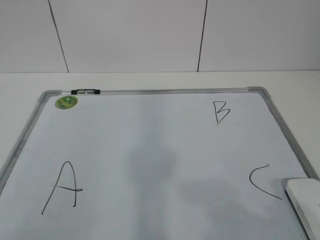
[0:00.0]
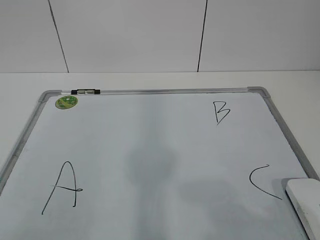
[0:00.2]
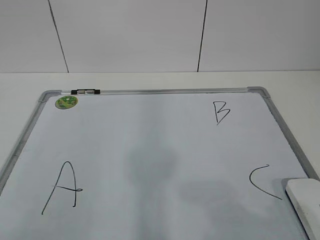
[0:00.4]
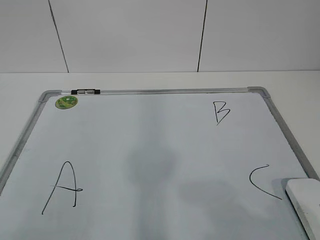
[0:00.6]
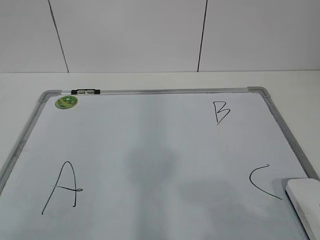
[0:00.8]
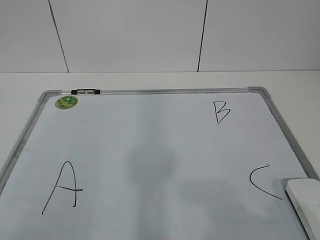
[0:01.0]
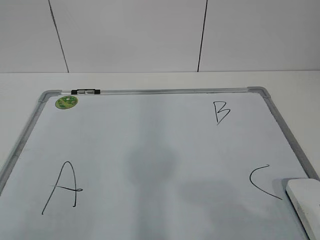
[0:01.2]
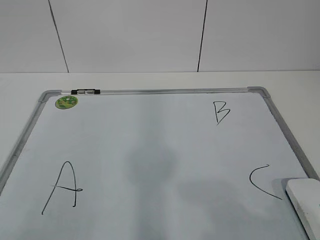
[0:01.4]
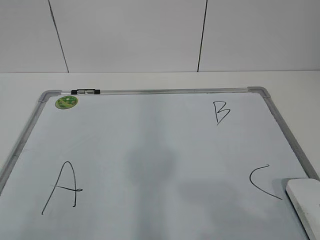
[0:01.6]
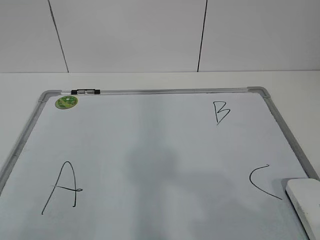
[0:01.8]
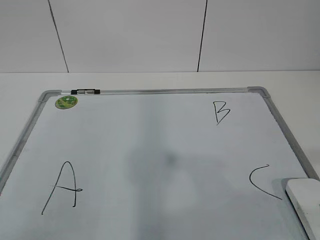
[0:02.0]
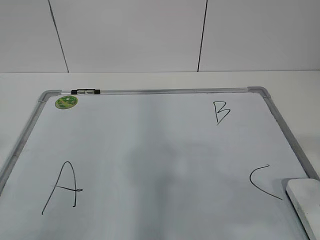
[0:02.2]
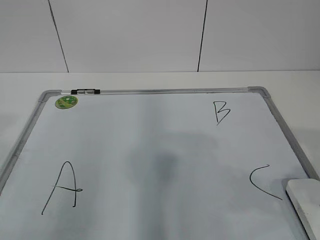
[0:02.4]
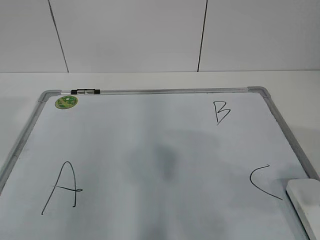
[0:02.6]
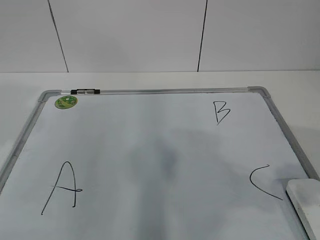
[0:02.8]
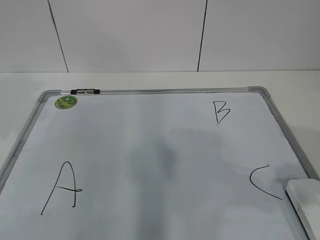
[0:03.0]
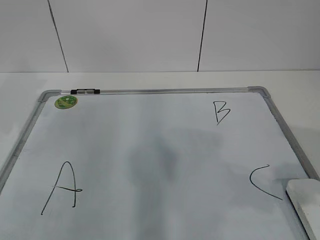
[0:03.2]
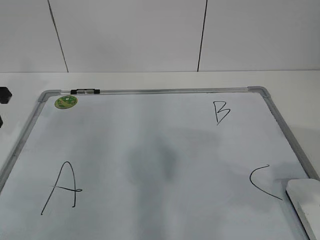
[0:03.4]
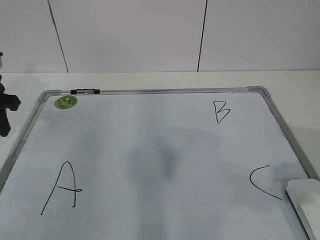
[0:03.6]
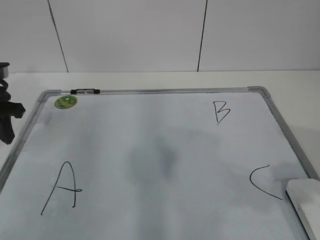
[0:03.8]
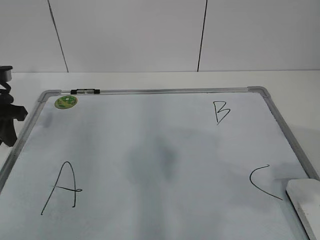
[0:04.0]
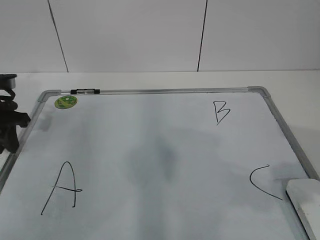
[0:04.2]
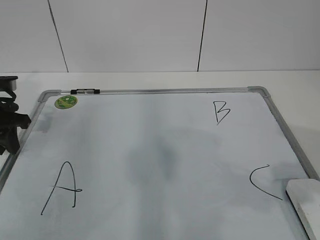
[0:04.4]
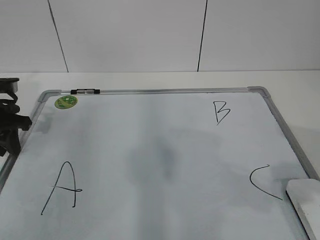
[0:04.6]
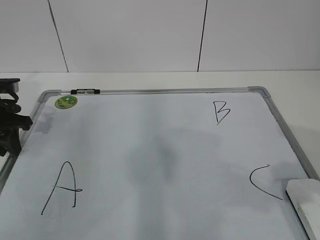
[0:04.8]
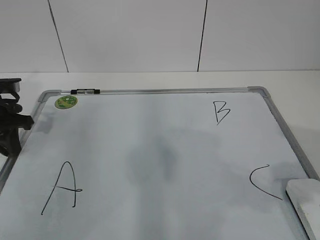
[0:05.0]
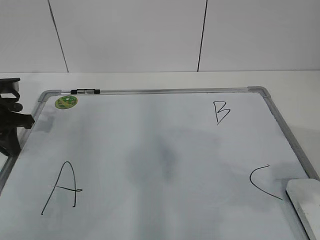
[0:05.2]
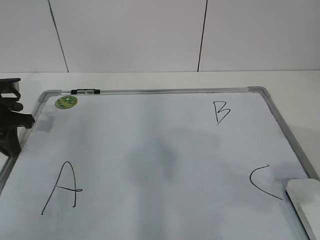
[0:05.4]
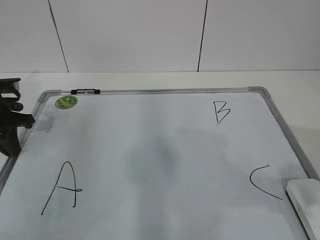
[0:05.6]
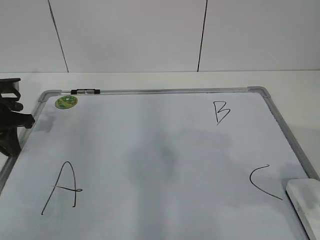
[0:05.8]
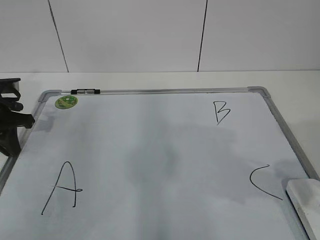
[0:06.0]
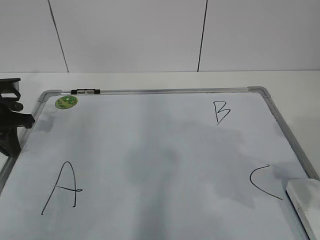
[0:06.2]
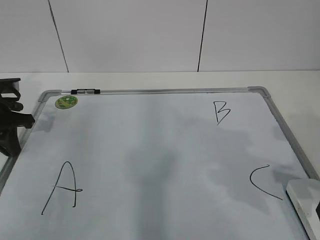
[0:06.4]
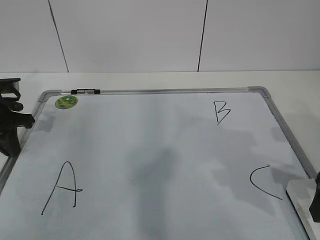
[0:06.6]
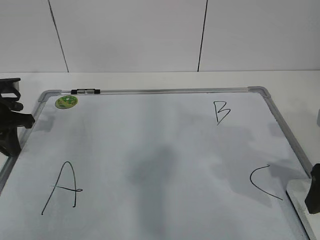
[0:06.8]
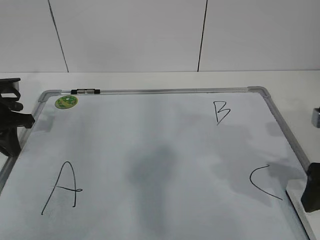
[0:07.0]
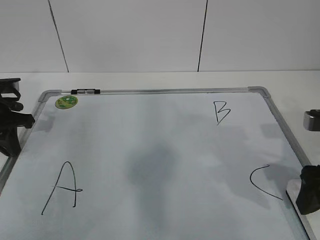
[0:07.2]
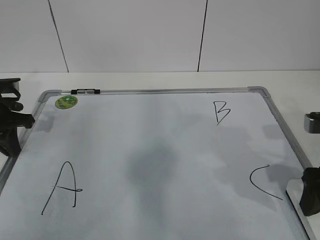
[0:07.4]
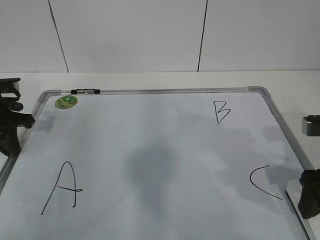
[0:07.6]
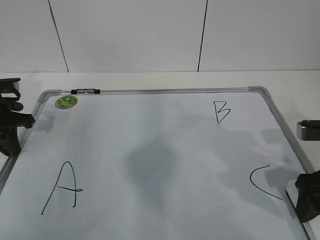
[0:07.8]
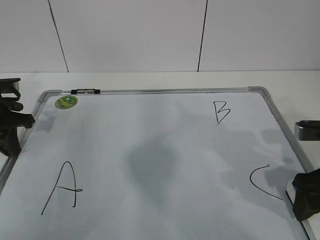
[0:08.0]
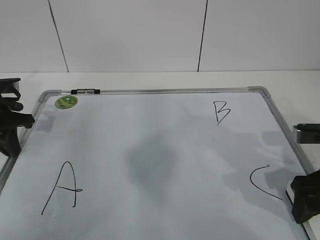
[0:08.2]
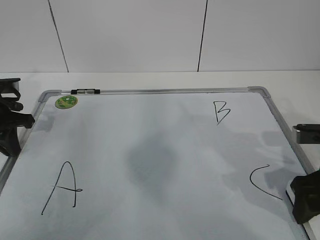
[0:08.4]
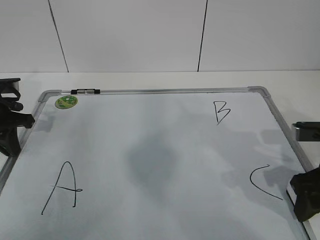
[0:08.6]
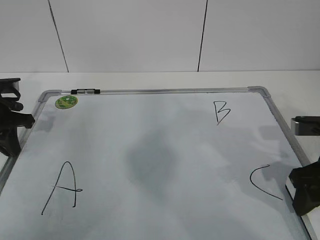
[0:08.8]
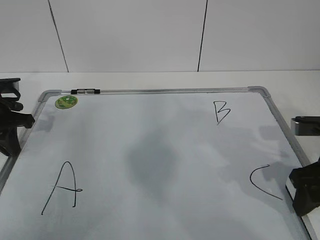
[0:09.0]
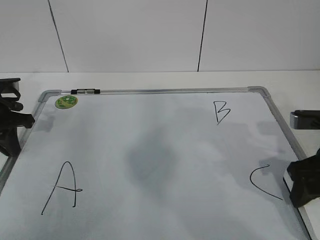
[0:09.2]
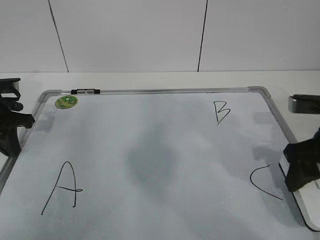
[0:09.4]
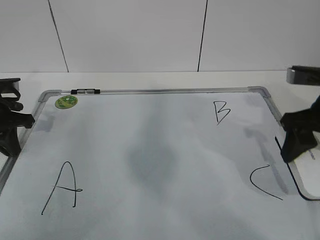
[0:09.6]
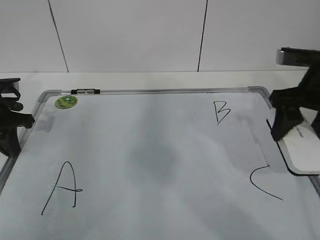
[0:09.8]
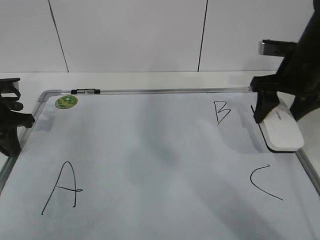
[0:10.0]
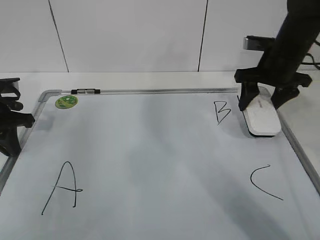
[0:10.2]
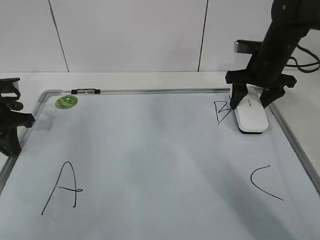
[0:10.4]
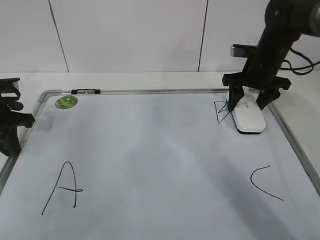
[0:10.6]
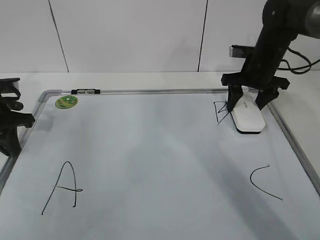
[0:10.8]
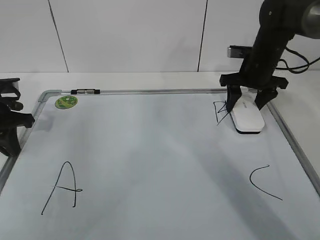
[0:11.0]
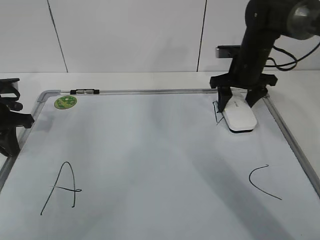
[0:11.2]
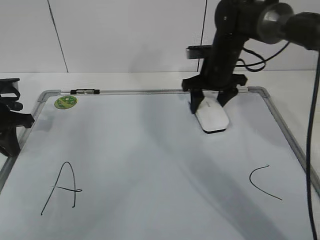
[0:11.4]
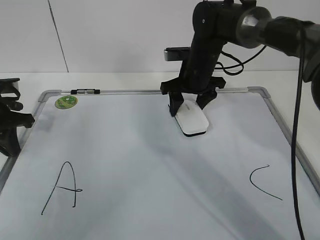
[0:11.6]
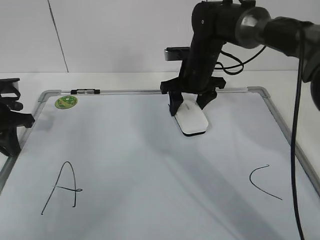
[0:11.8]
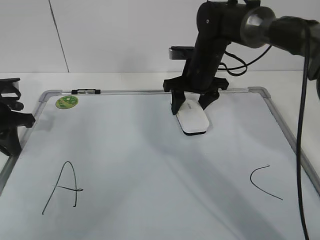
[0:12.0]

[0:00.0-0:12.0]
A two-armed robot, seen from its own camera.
Task of the whole recording: pick up the eraser on the blackboard and erase the letter "B".
Step, 0:00.0 to 0:04.2: Hold the drawing board steady with your left hand.
Step, 0:07.2 to 0:11.8: Erase the letter B with your right hand.
0:01.6 to 0:03.0: The right gripper travels forward by about 10 cm; the left gripper travels forward by approximately 25 cm.
0:03.0 to 0:04.4: The left gripper is displaced downward and forward by roughly 15 cm.
0:04.4 to 0:06.0: The left gripper closes up.
0:06.0 to 0:07.6: The right gripper is displaced forward and downward by some 10 cm.
0:07.6 to 0:09.0: The right gripper closes up.
0:09.0 to 0:10.4: The right gripper is displaced forward by about 20 cm.
0:10.4 to 0:12.0: The right gripper travels to the left by roughly 10 cm.

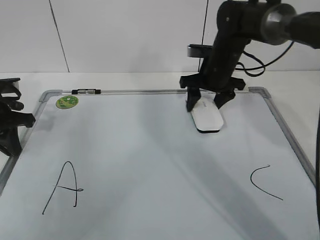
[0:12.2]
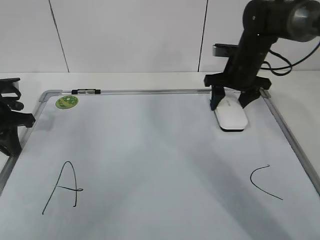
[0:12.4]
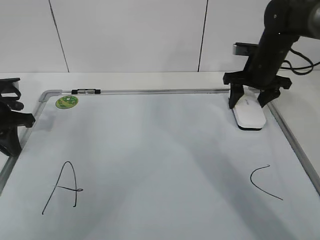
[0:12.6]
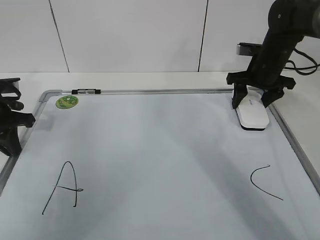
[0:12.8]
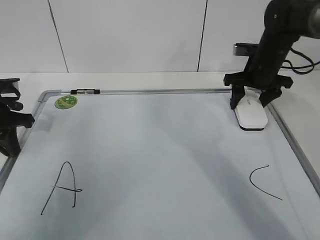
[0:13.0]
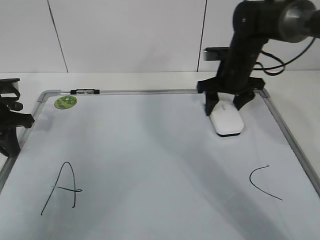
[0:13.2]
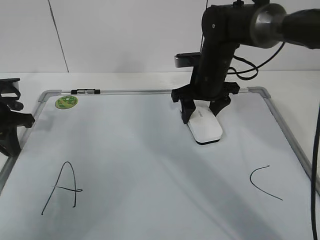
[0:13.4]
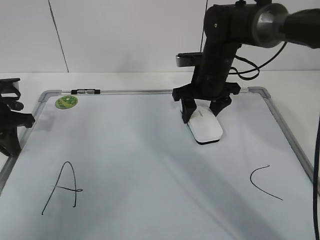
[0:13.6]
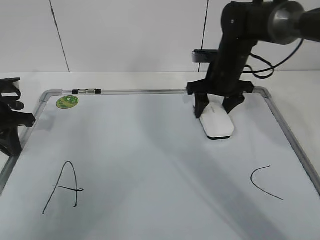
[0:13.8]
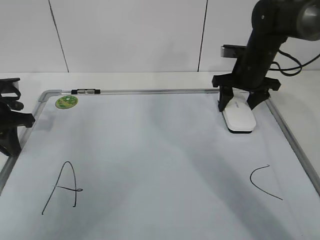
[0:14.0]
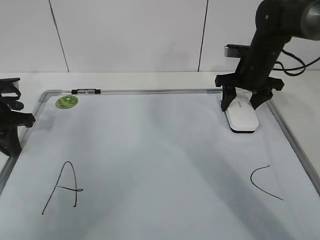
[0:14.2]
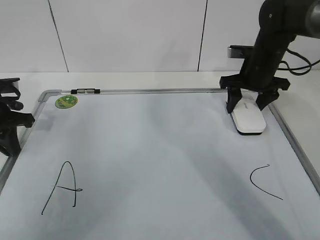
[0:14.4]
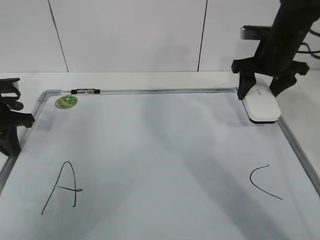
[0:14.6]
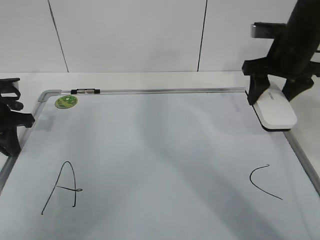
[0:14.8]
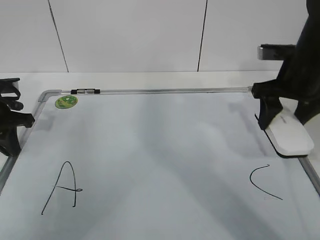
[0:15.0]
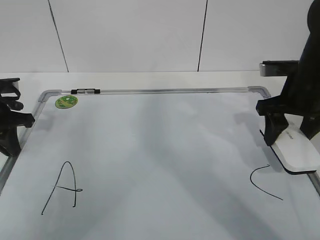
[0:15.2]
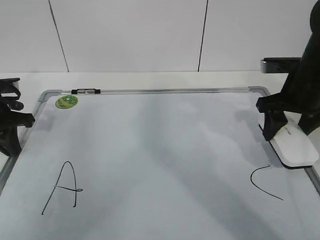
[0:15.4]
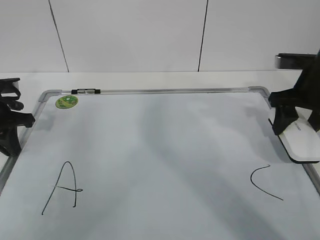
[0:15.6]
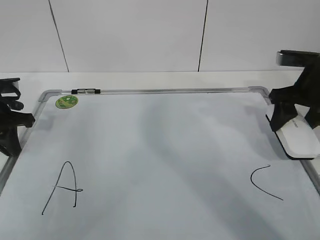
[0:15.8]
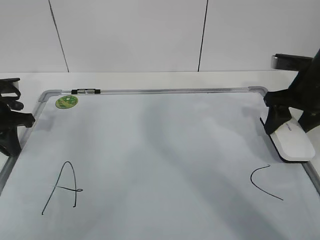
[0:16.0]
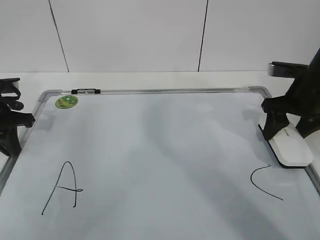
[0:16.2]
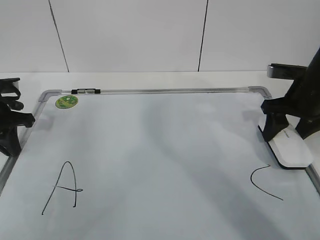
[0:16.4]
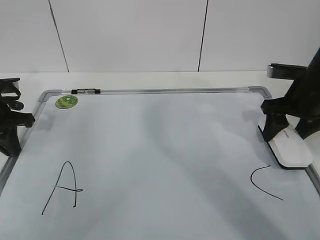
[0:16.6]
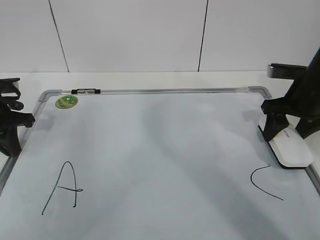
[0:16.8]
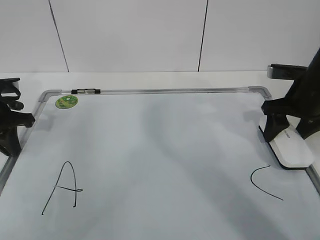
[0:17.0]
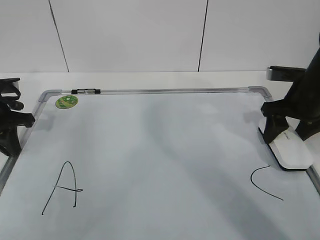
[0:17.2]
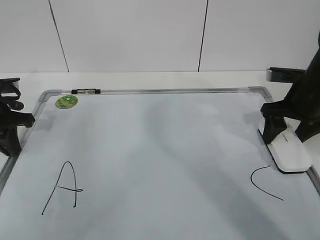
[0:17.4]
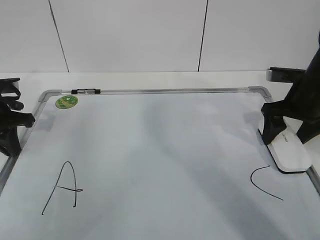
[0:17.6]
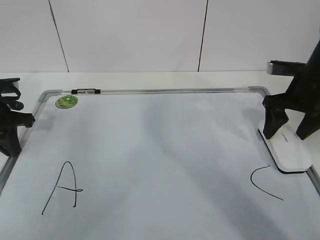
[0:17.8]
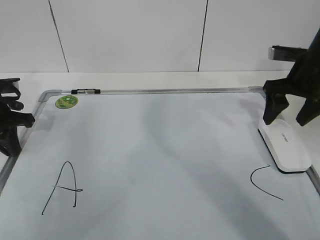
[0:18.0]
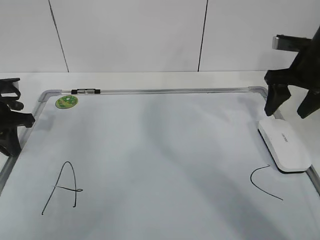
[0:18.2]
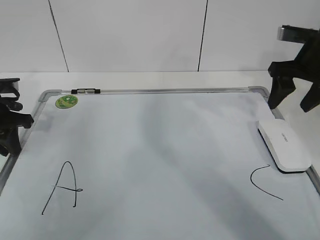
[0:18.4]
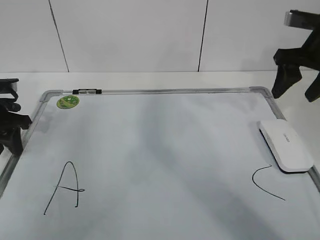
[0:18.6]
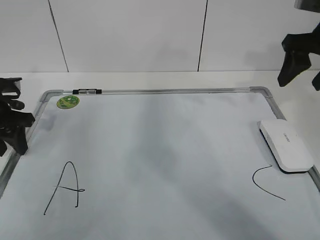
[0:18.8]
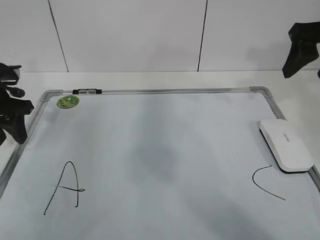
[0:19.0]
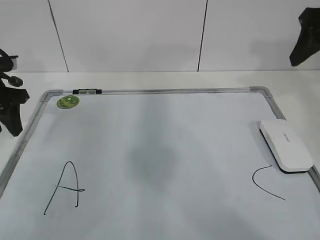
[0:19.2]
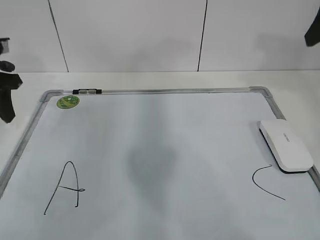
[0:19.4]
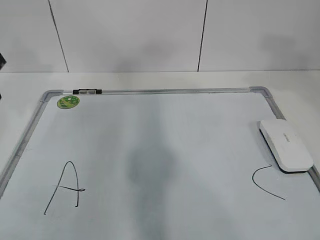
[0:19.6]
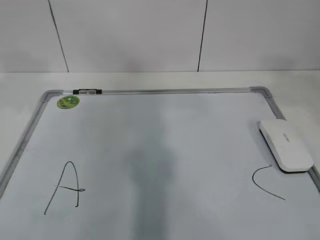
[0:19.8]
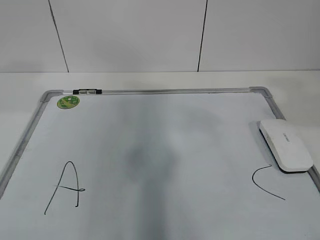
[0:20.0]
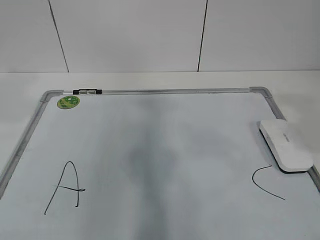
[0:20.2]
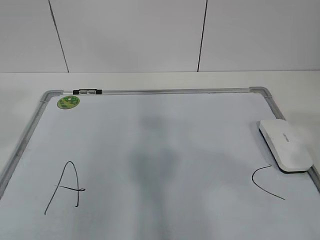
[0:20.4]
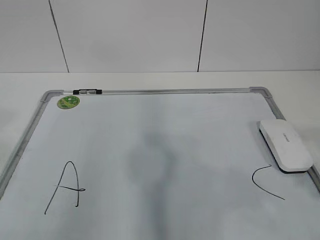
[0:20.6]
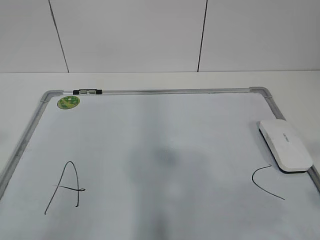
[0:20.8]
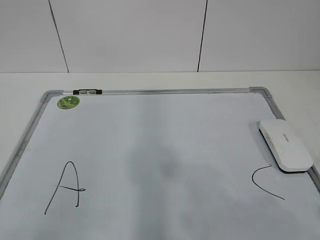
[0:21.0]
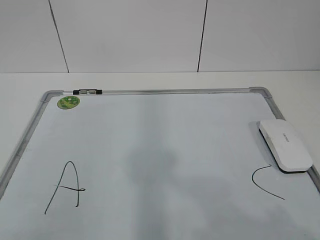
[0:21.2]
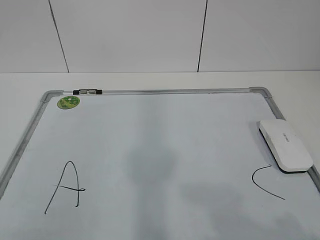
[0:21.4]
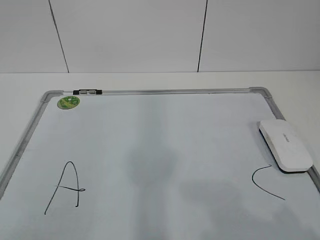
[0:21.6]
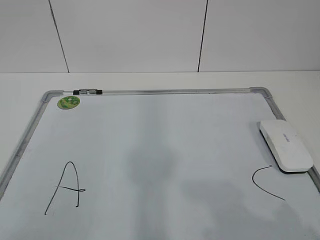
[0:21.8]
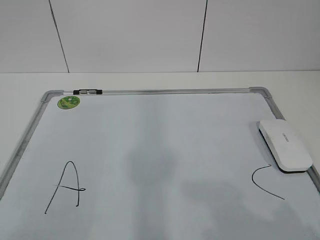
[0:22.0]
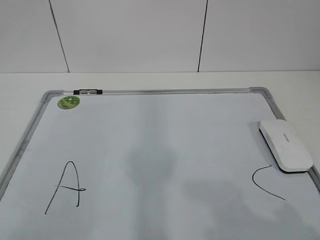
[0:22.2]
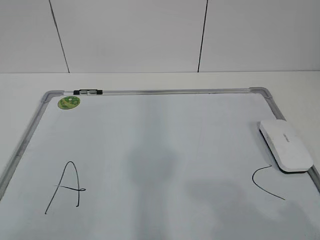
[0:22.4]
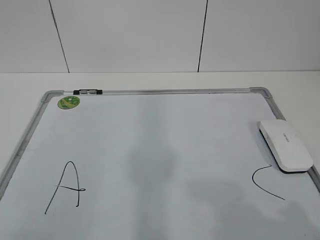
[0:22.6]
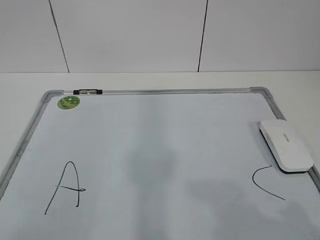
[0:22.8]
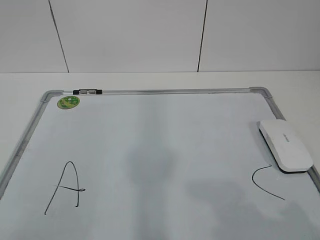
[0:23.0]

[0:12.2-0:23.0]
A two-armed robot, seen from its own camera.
Task of the whole recording: pick up the eraser on the blackboard and erase the letter "B".
Step, 0:12.2 to 0:14.4: Put down the eraser with your right hand.
0:12.2 to 0:13.8: The right gripper swings left and right, roughly 15 cm each way, with 2 reversals.
0:13.8 to 0:15.2: The right gripper heads backward and to the right, covering some 15 cm.
0:15.2 to 0:16.8: The grippers move only a little.
0:16.8 to 0:18.4: The right gripper heads upward, covering some 5 cm, and opens.
0:18.4 to 0:20.0: The left gripper moves upward and backward, roughly 25 cm, and opens up. The right gripper goes roughly 25 cm backward and upward.
0:20.0 to 0:21.4: The right gripper heads backward and downward, covering approximately 20 cm. The left gripper goes about 25 cm backward.
